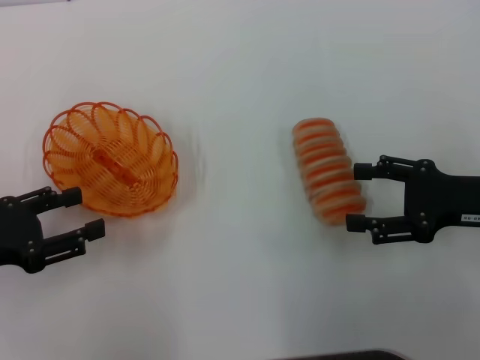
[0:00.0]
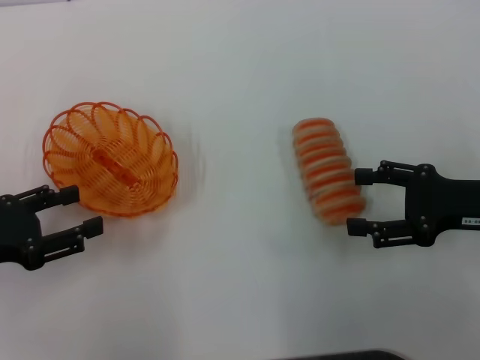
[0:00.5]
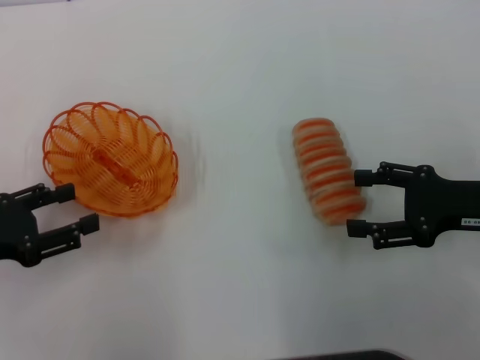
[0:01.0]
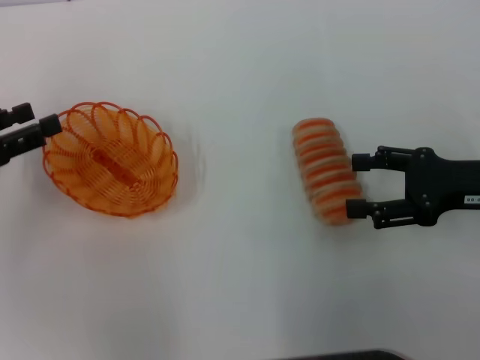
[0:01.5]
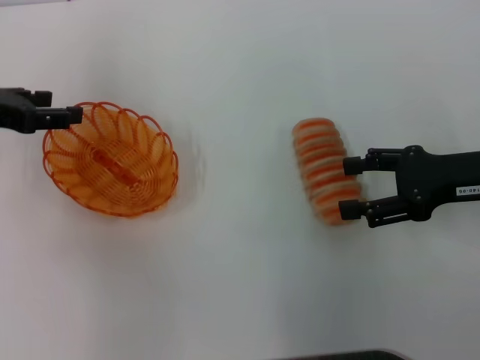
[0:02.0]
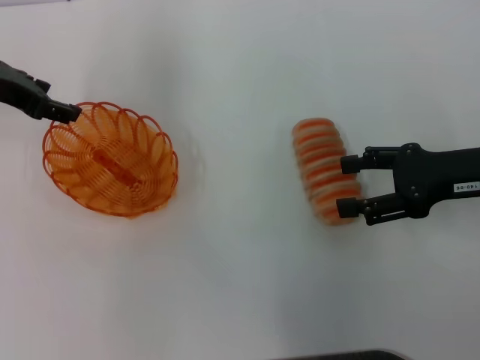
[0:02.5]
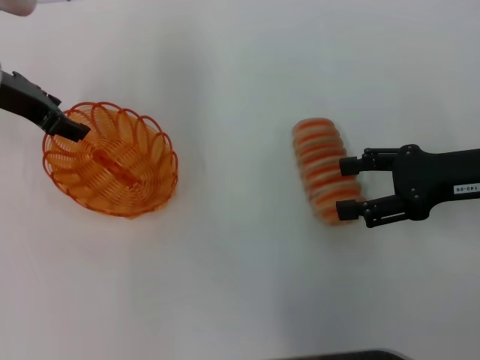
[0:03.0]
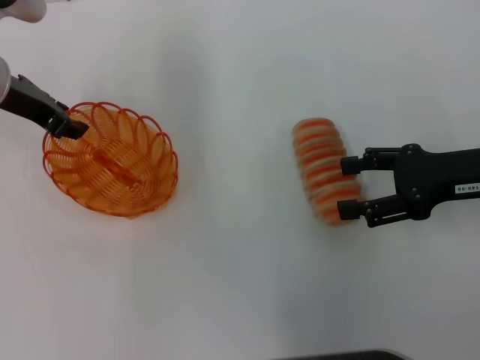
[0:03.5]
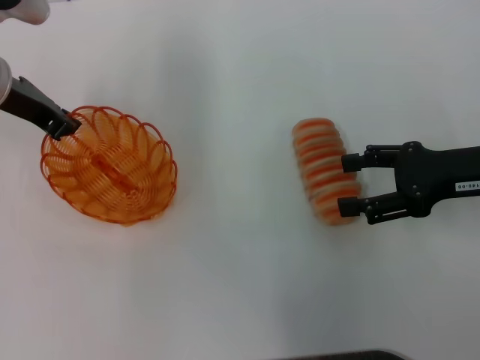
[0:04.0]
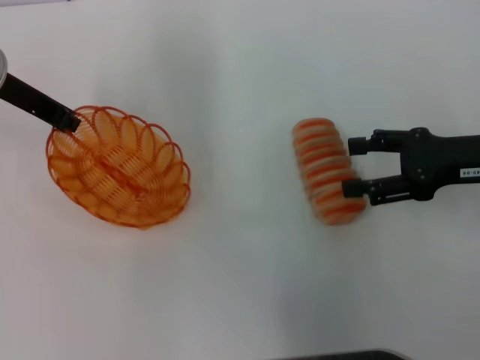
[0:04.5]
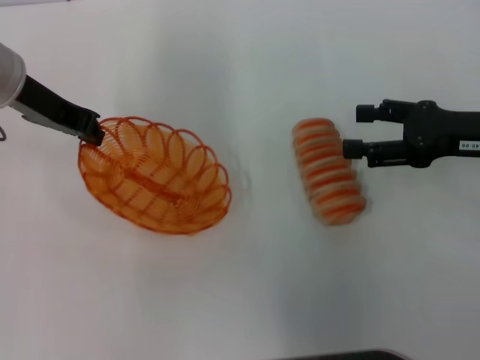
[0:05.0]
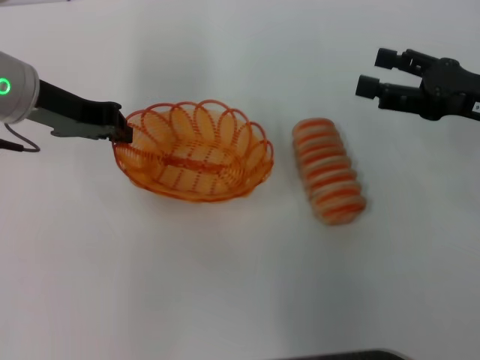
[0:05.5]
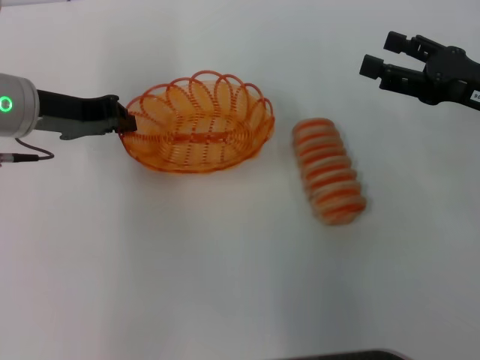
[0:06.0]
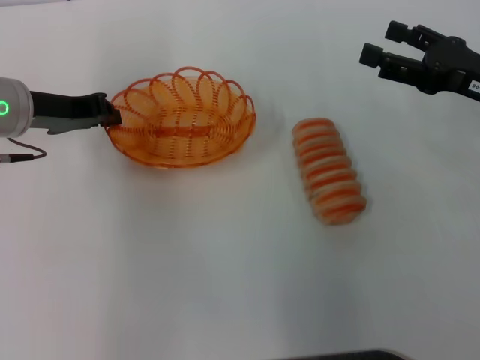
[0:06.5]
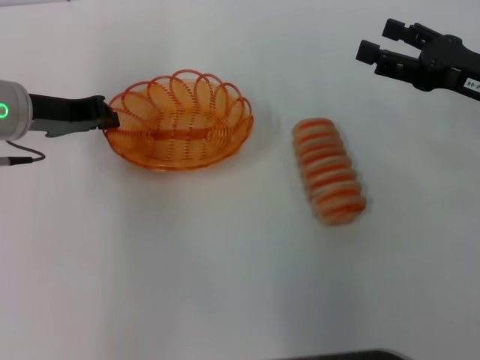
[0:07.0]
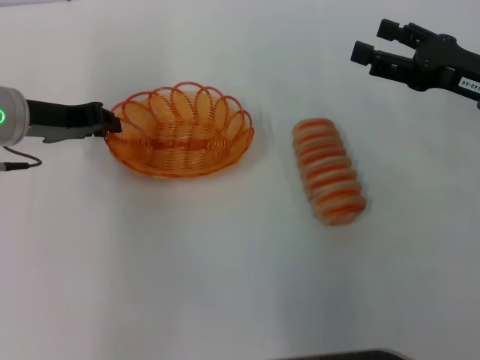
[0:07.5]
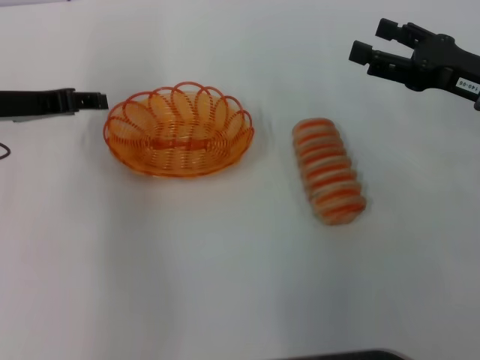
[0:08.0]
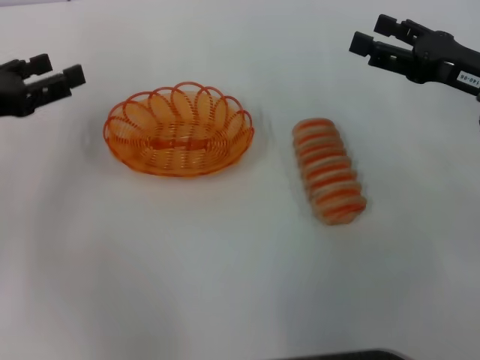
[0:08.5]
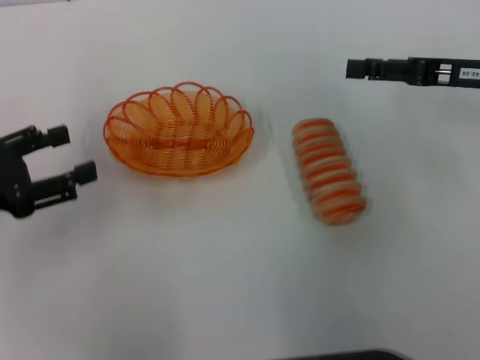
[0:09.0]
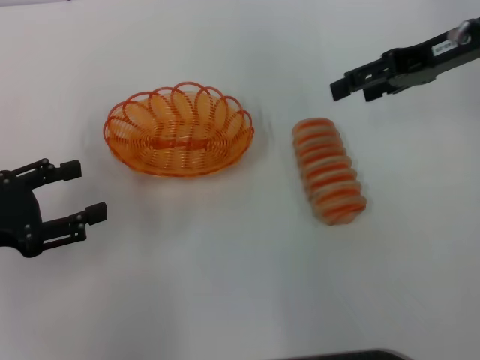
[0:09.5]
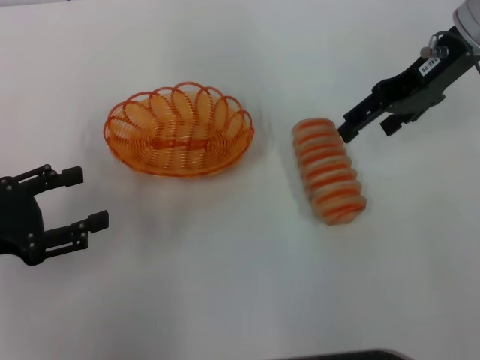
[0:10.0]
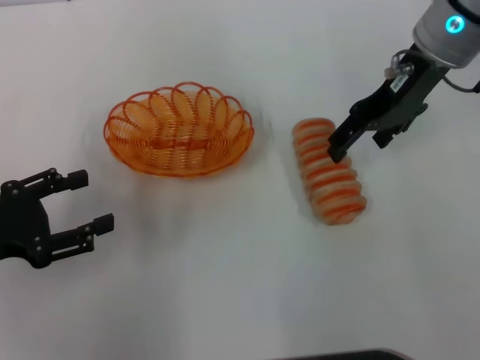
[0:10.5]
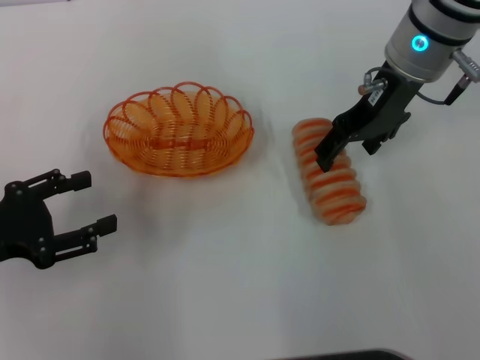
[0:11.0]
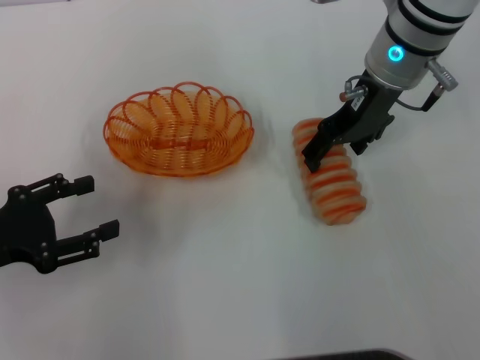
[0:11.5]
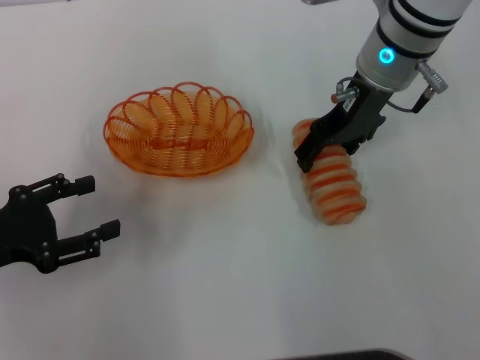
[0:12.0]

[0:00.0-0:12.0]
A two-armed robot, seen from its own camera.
Step, 0:00.0 to 0:04.5: Pick up the basket with the left gripper.
Step, 0:05.0 to 0:07.5: Place the basket in the center of view with the left gripper.
0:00.0 to 0:02.0: The left gripper shifts approximately 15 cm forward and upward.
0:02.0 to 0:04.0: The left gripper goes approximately 5 cm to the right, and closes.
0:06.0 to 0:08.0: The left gripper opens up.
0:08.0 to 0:10.0: The right gripper travels upward, forward and to the left by approximately 15 cm. The left gripper travels backward and to the left by some 15 cm.
0:10.0 to 0:12.0: The right gripper heads to the left, covering roughly 10 cm.

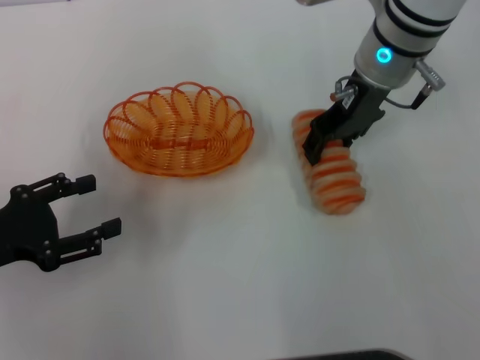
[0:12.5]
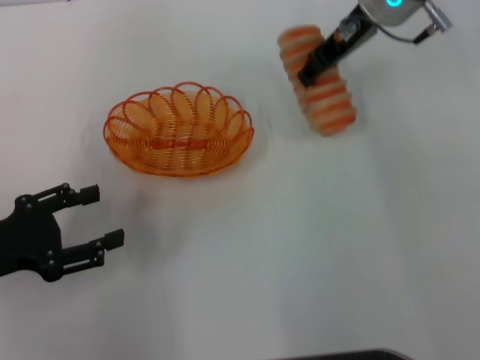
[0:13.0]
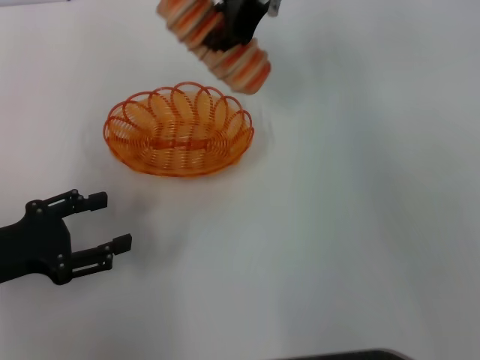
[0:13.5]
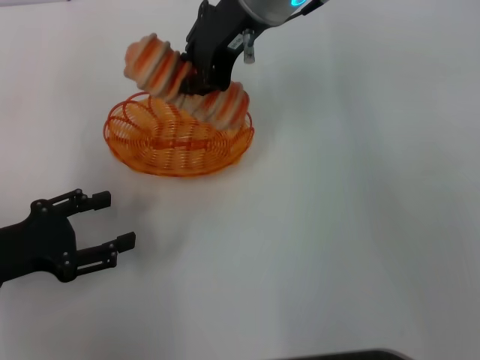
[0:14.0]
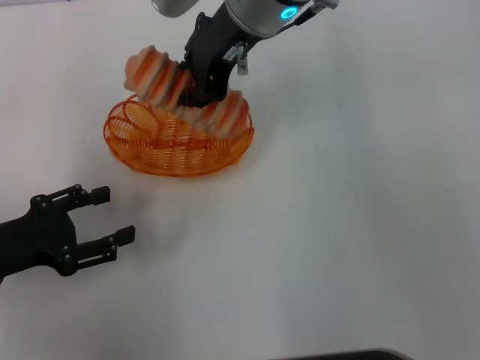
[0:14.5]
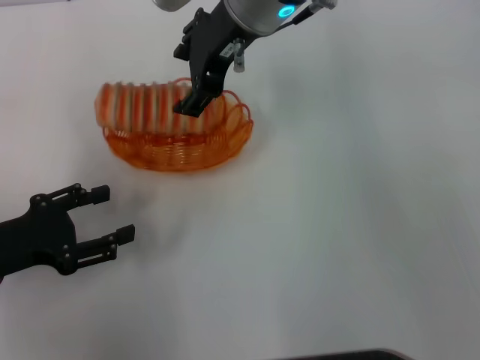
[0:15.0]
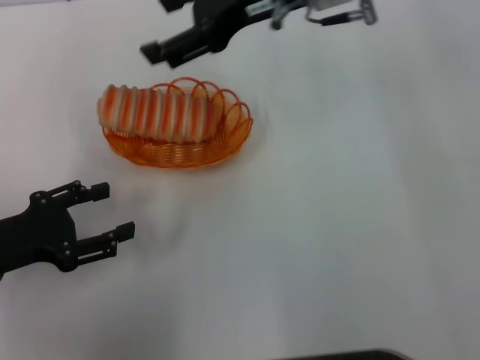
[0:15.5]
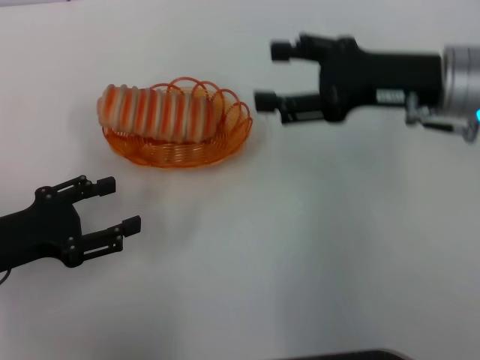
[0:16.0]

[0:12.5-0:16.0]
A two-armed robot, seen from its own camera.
Step, 0:13.0 to 0:15.0: Place the long bread into the basket with the right gripper.
0:12.5 to 0:14.5: The right gripper goes roughly 10 cm to the left and upward, and closes.
0:14.5 to 0:16.0: The right gripper goes some 20 cm to the right, backward and downward, and opens its fingers.

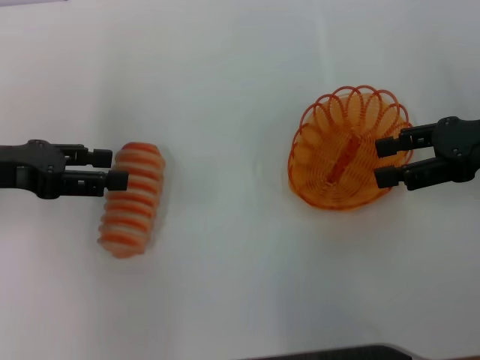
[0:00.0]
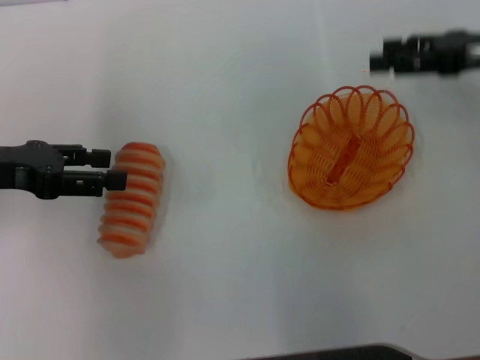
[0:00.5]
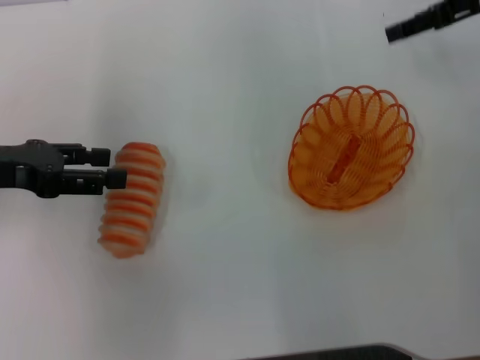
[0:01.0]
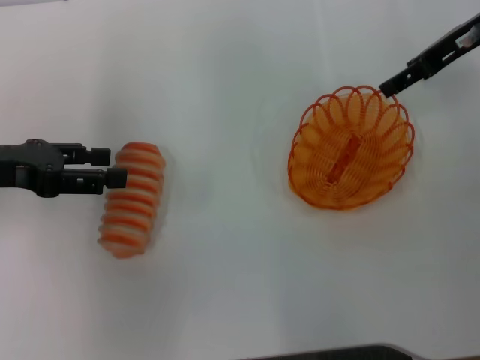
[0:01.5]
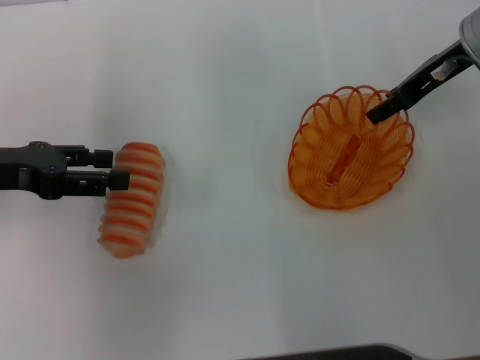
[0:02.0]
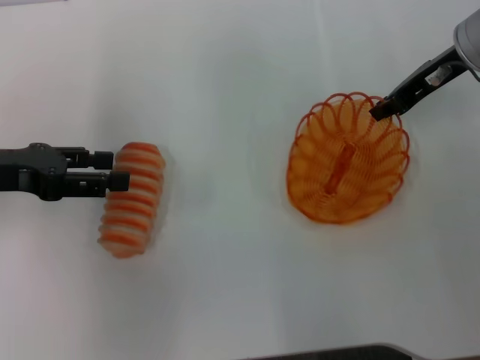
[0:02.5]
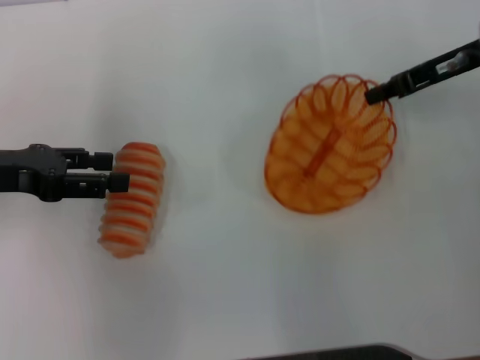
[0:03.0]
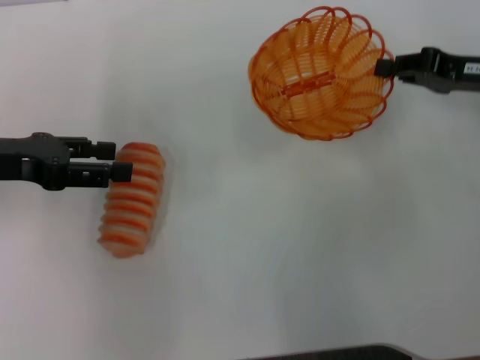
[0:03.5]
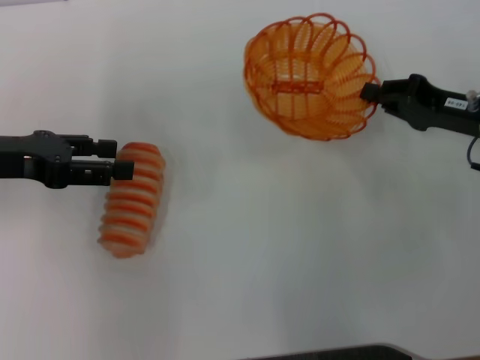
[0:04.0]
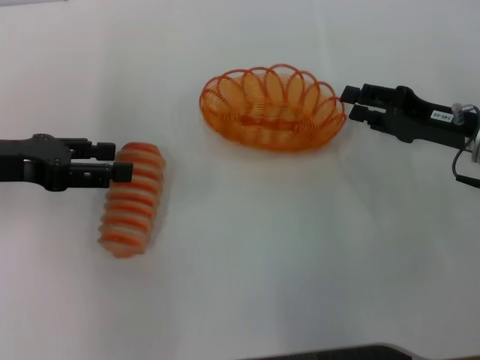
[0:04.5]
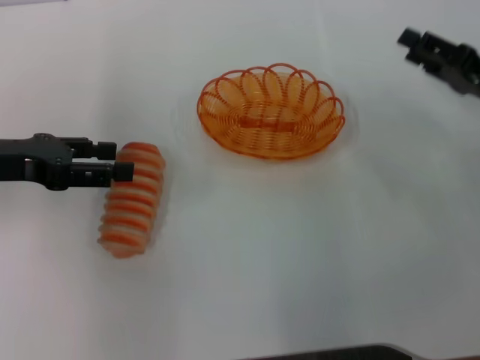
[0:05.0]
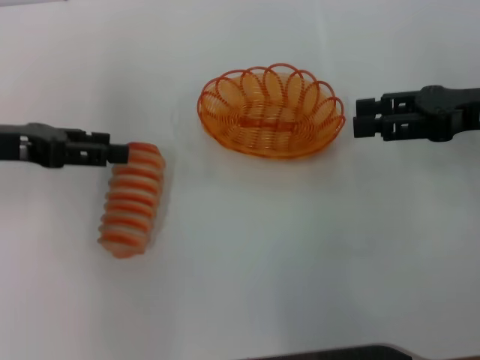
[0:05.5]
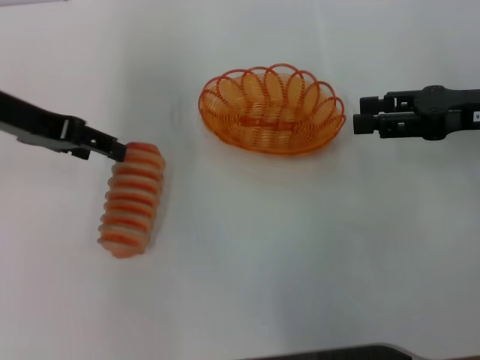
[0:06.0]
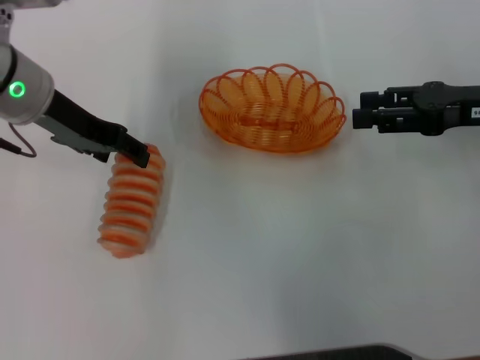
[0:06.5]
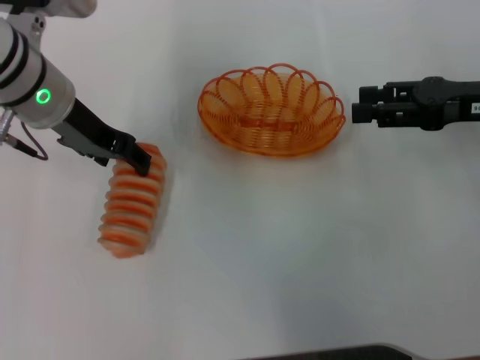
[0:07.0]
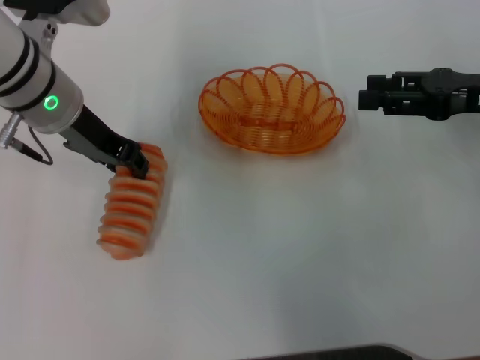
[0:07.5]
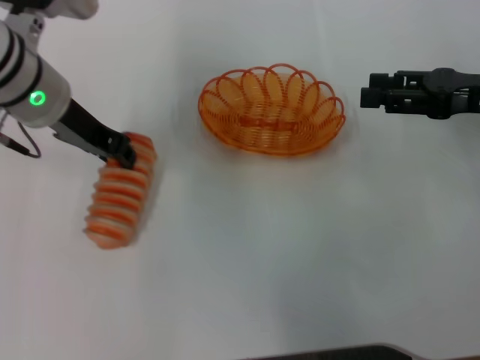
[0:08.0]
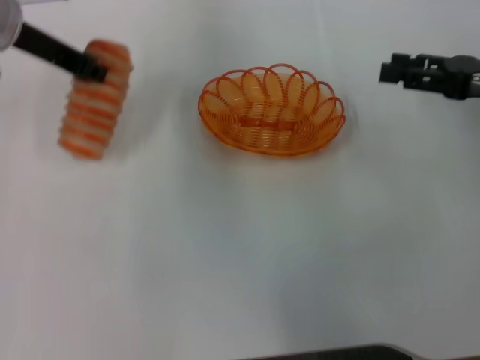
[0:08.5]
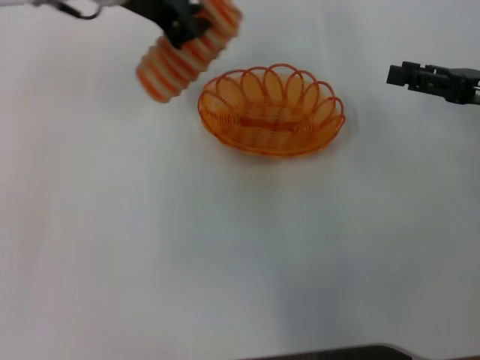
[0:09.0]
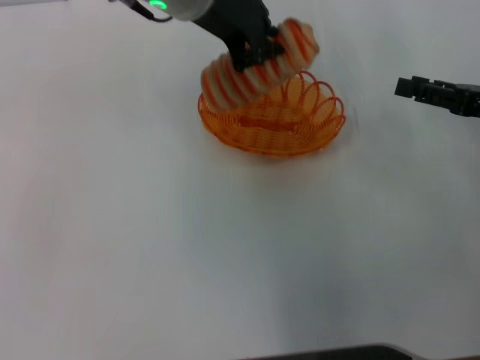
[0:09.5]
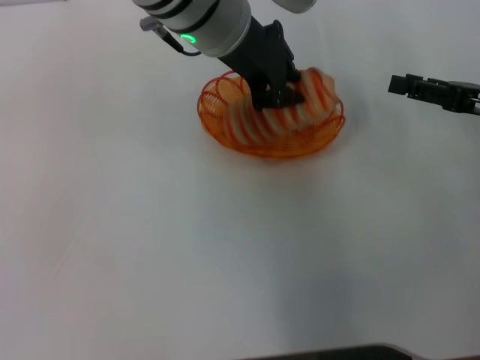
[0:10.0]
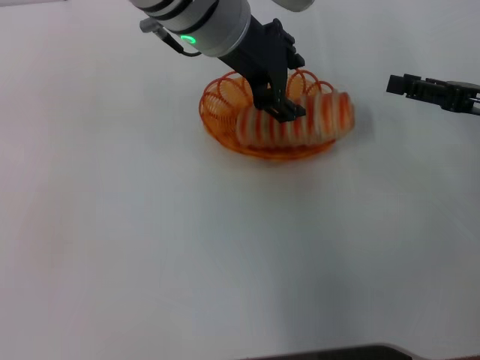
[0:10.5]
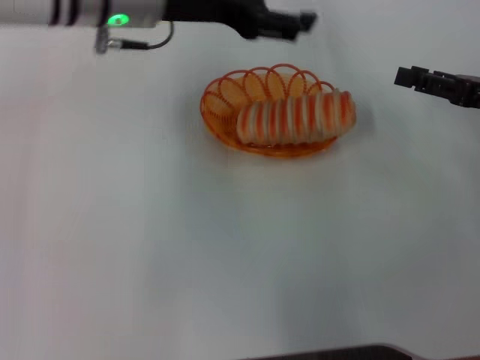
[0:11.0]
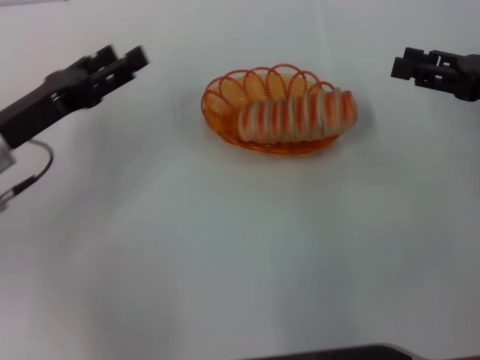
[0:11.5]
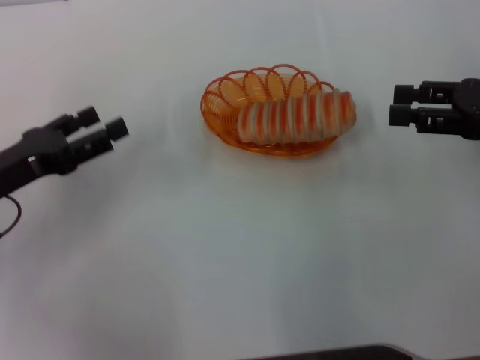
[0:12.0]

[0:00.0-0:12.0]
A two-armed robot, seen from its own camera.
Step, 0:00.0 to 0:02.5: Pick up the basket with the right gripper.
Step, 0:03.0 to 0:04.5: Place the basket in the center of view with the right gripper.
Step, 0:05.0 to 0:07.5: Pick up the long bread with the left gripper.
Step, 0:08.0 to 0:10.5: Place the long bread into the basket with the left gripper.
0:00.0 to 0:02.0: The right gripper travels forward and to the left by some 10 cm.
0:02.0 to 0:04.0: The right gripper heads backward and downward, covering about 15 cm, and closes up.
0:04.0 to 0:06.0: The left gripper ends up some 10 cm from where it was. The right gripper travels upward by roughly 5 cm, and opens up.
0:06.0 to 0:08.0: The left gripper travels to the right by some 5 cm, and closes.
0:08.0 to 0:10.0: The left gripper moves to the right, approximately 15 cm.
0:10.0 to 0:12.0: The left gripper moves to the left, downward and backward, about 30 cm, and opens.
